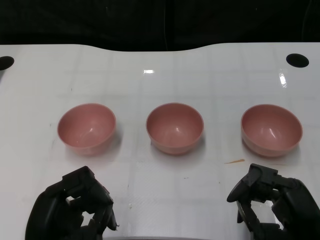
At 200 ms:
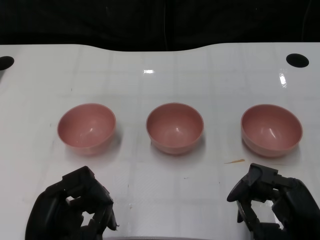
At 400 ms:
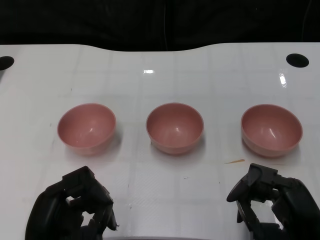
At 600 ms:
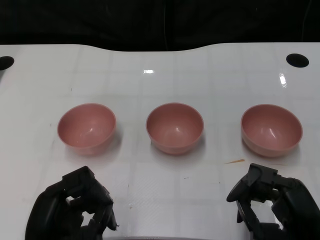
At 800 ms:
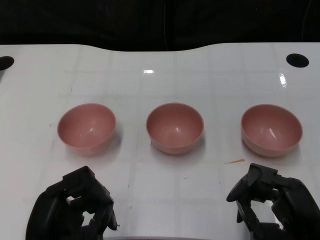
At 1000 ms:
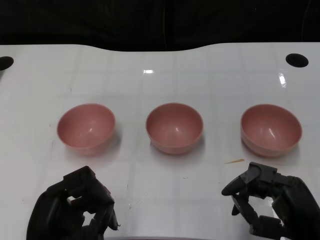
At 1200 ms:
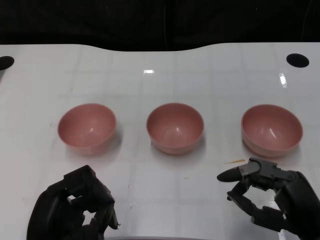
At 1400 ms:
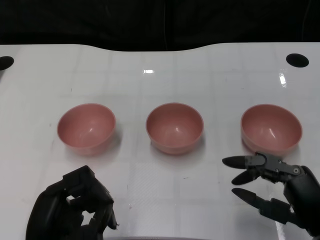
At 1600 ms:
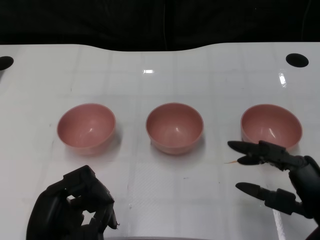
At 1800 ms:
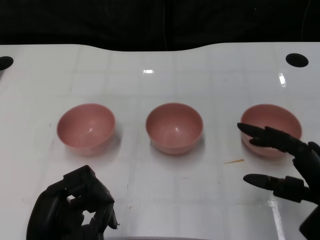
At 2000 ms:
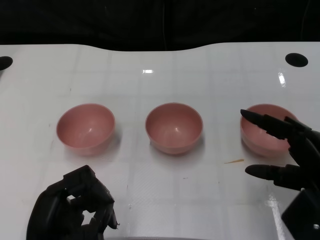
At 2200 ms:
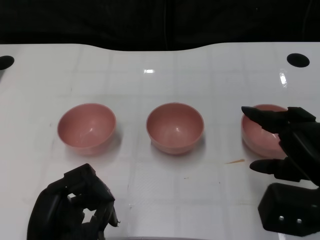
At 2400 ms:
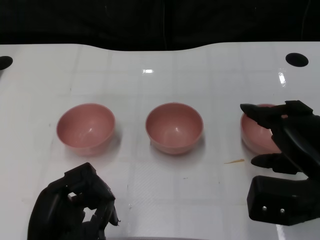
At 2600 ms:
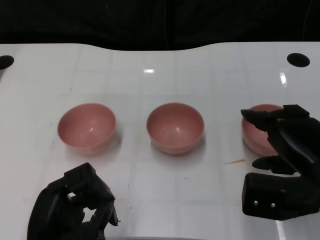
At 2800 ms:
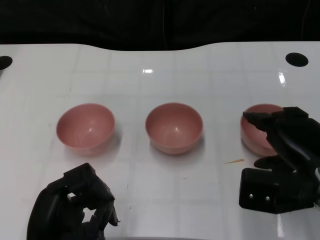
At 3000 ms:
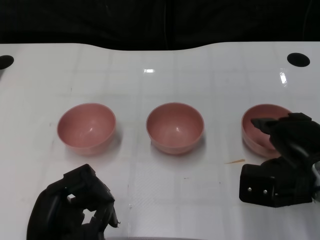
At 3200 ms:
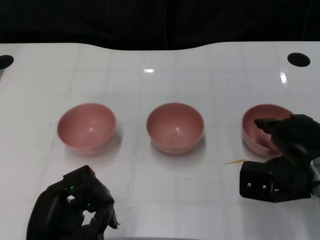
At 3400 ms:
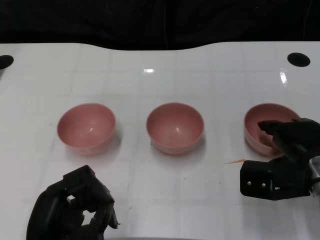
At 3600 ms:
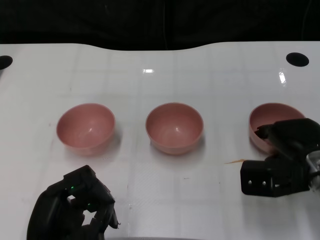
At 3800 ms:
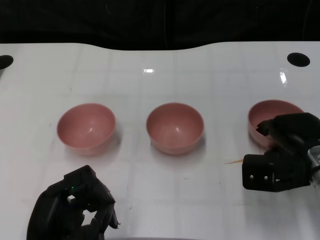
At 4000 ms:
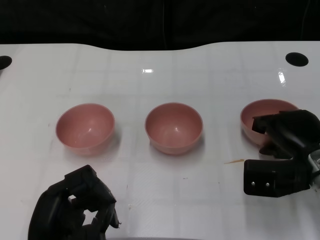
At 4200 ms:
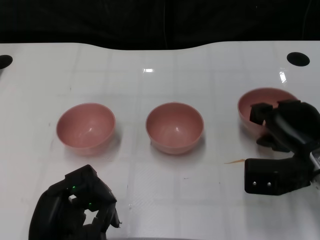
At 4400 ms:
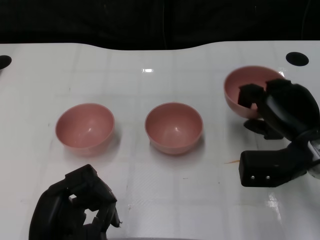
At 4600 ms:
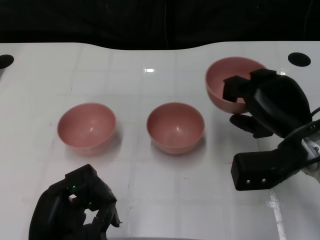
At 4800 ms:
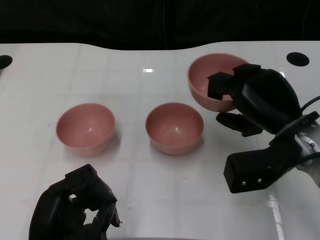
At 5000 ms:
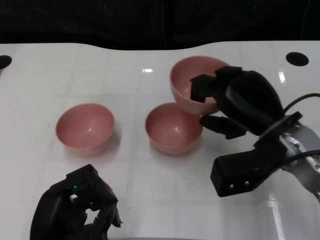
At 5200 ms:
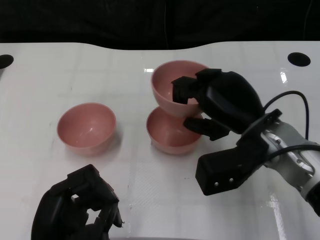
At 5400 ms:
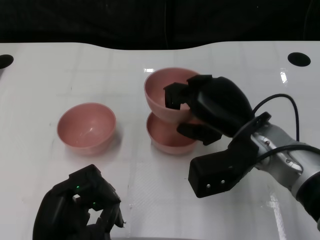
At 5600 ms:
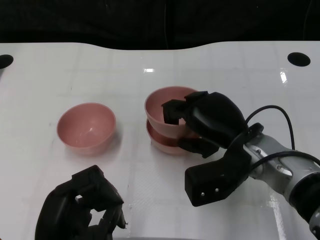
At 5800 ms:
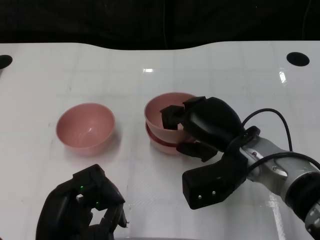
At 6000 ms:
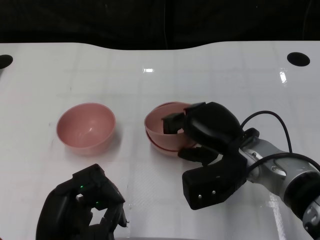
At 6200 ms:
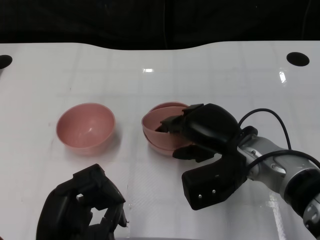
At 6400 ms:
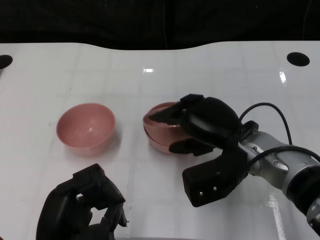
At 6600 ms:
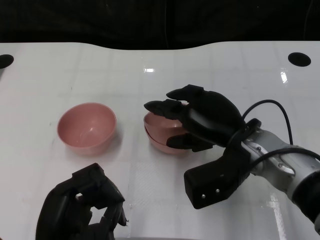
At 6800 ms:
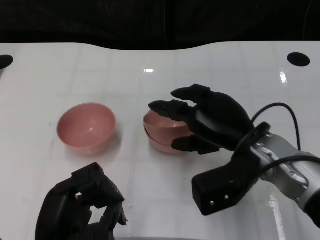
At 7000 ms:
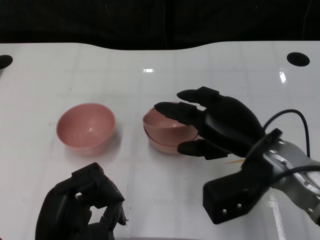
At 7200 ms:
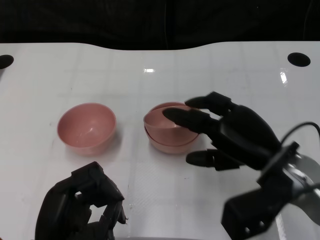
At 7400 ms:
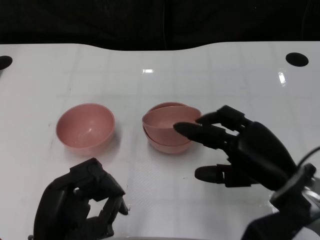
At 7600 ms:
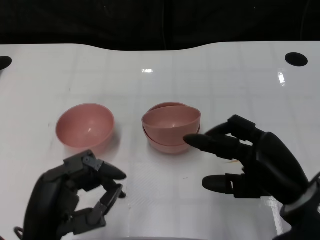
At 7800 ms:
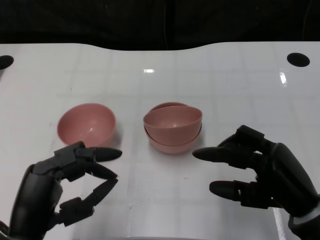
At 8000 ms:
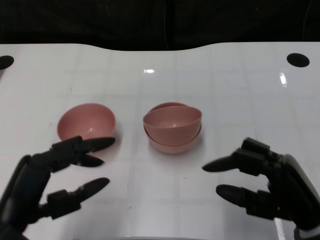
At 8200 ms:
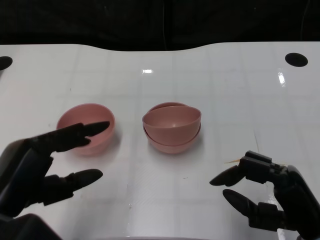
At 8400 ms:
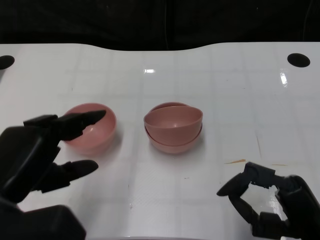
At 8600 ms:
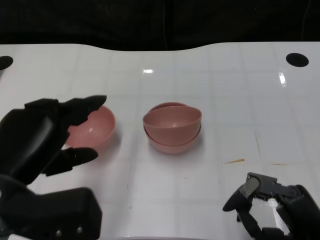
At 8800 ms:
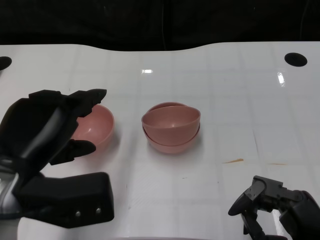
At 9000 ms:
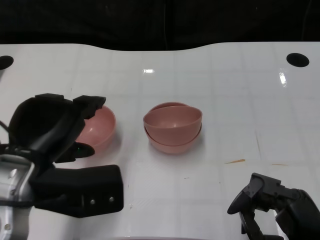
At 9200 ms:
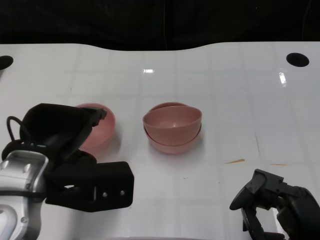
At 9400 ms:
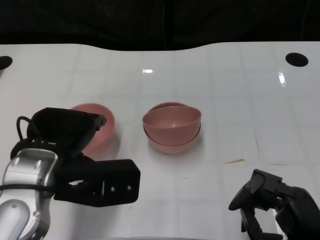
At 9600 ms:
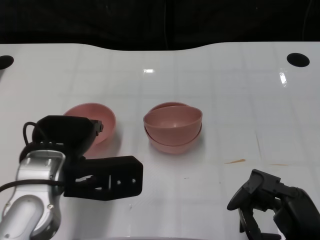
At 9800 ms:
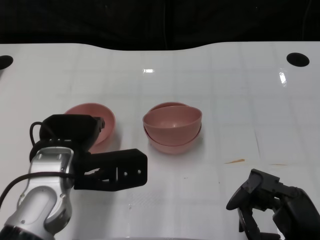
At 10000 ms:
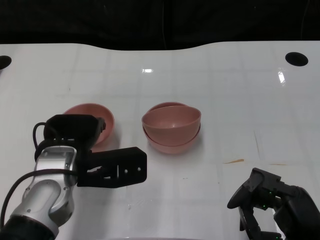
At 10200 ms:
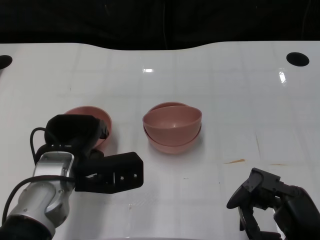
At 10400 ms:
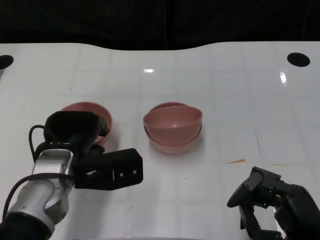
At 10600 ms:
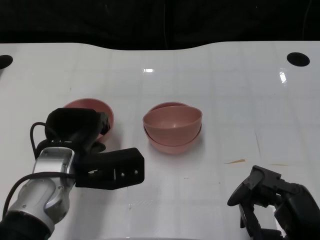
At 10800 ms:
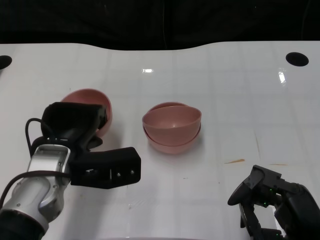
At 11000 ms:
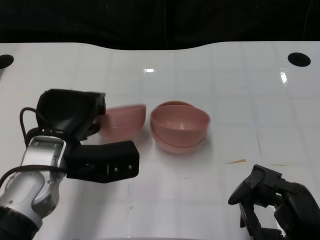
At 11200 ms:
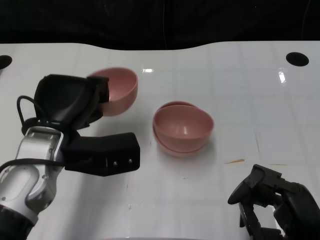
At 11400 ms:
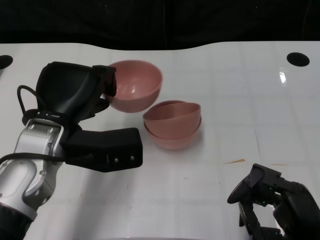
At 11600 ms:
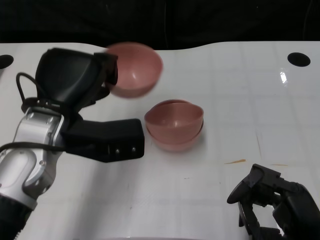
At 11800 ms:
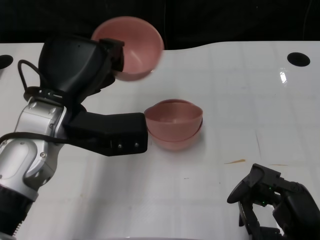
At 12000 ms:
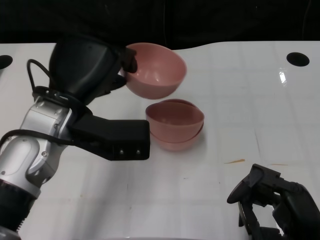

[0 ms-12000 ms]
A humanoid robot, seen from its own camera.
Task of the whole recording: Pick up the bowl on one side of the table and place it on top of the middle bowl, then pick up the bowl on the other side of the table and place it on top of the middle bowls.
Step, 1000 ms to 3800 ms: Grasp the bowl on the right with the right gripper.
Step, 4000 ms to 7200 ms: Place the bowl on the right onto the bowl in the middle with right gripper.
Step, 7400 ms to 11000 ms: Grasp the bowl on the left with the left gripper.
1600 ms to 3000 ms: The right hand is displaced forward by some 10 cm.
4400 ms to 6000 ms: The right hand heads to the left, covering approximately 10 cm.
6000 ms to 7600 ms: The right hand moves to the right and backward, some 10 cm.
7600 ms to 9000 ms: The right hand moves backward, roughly 10 cm. Meanwhile the left hand is displaced upward and forward by roughly 10 cm.
9000 ms to 10400 ms: The left hand goes some 10 cm downward and forward.
10400 ms to 12000 ms: The left hand heads upward, covering some 10 cm.

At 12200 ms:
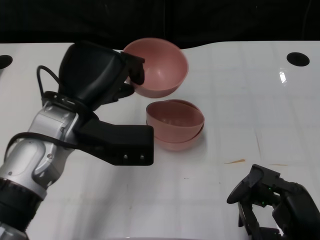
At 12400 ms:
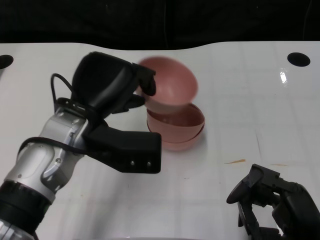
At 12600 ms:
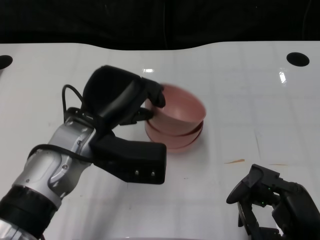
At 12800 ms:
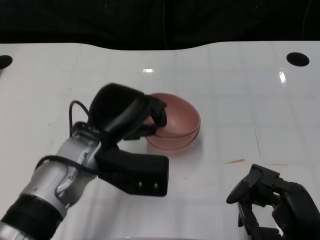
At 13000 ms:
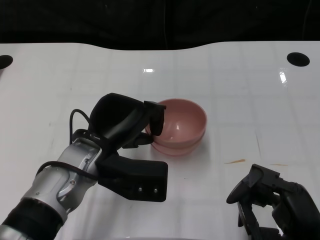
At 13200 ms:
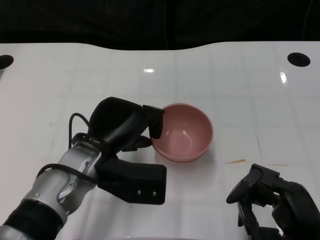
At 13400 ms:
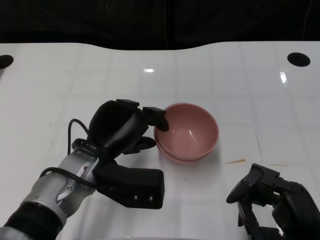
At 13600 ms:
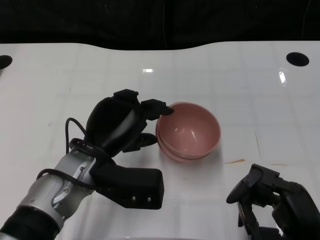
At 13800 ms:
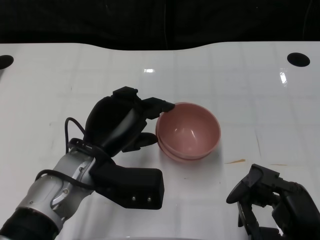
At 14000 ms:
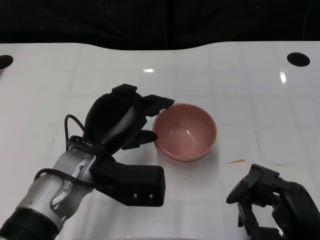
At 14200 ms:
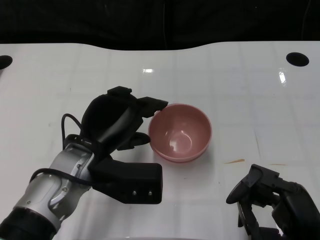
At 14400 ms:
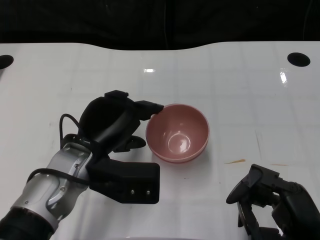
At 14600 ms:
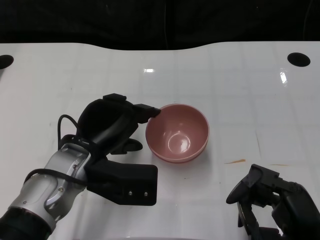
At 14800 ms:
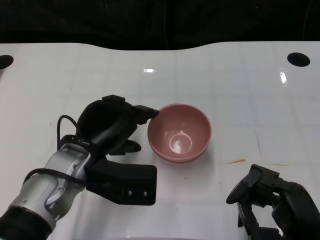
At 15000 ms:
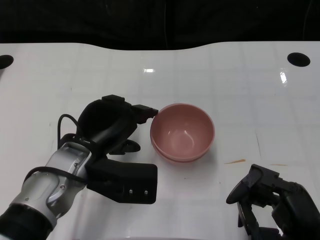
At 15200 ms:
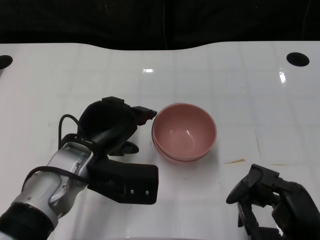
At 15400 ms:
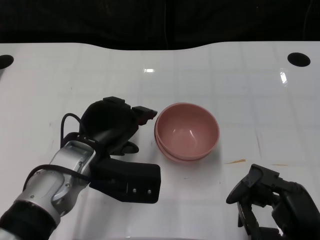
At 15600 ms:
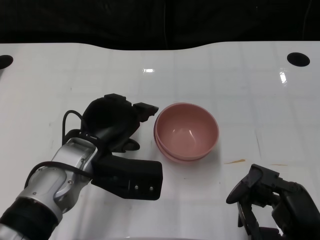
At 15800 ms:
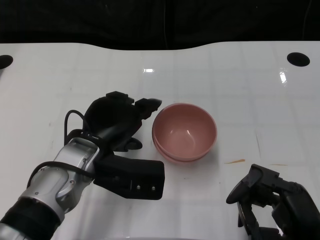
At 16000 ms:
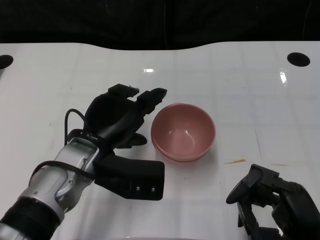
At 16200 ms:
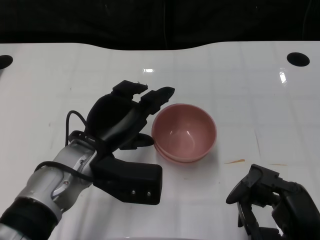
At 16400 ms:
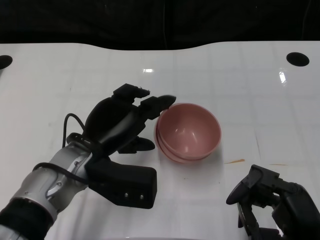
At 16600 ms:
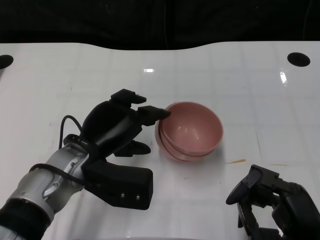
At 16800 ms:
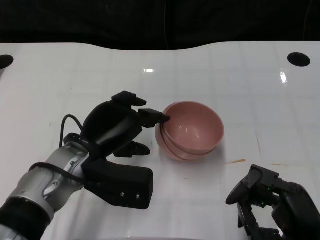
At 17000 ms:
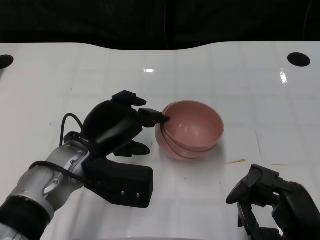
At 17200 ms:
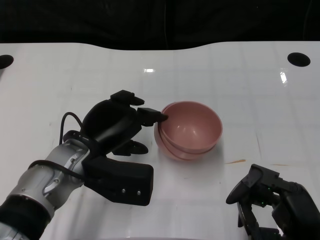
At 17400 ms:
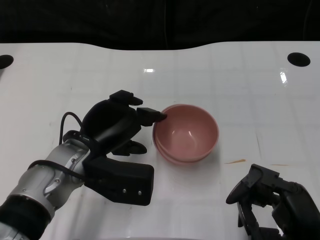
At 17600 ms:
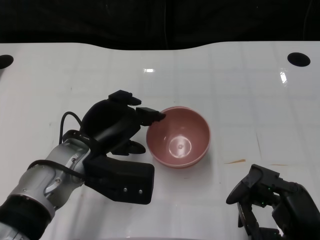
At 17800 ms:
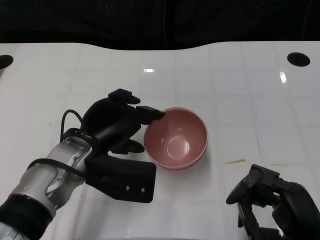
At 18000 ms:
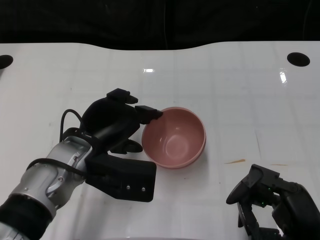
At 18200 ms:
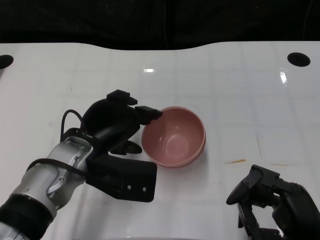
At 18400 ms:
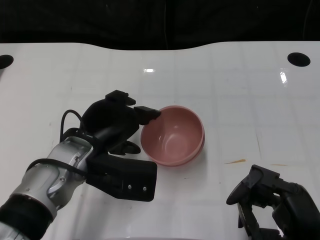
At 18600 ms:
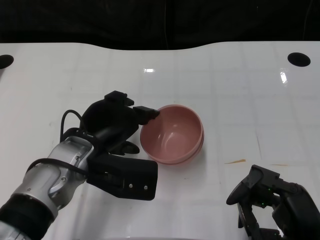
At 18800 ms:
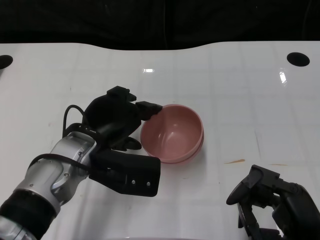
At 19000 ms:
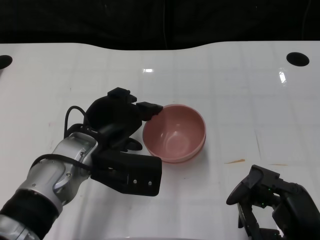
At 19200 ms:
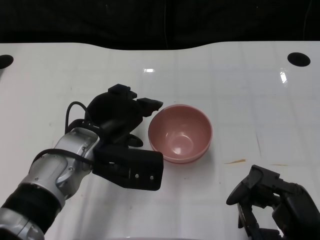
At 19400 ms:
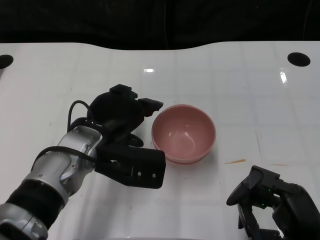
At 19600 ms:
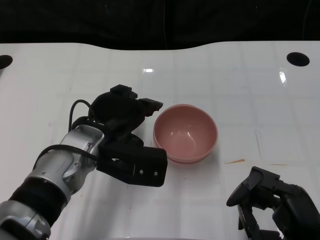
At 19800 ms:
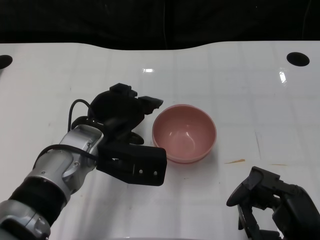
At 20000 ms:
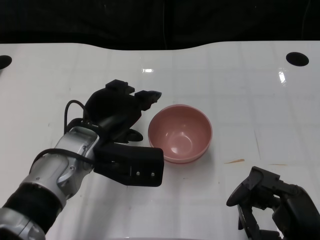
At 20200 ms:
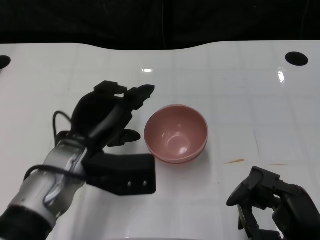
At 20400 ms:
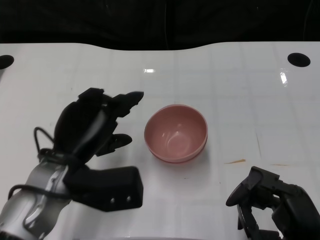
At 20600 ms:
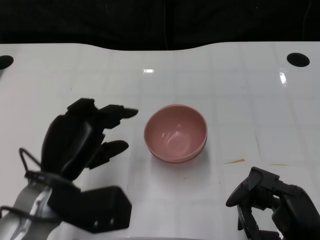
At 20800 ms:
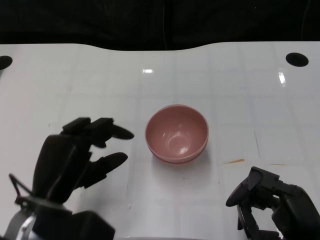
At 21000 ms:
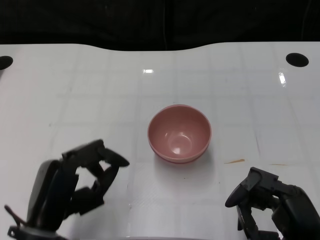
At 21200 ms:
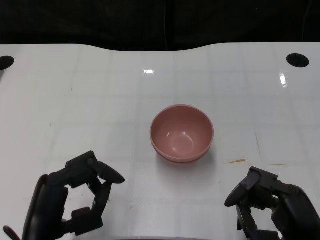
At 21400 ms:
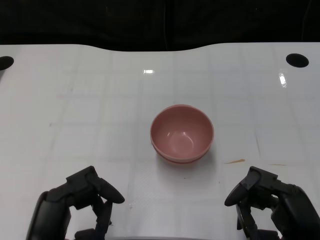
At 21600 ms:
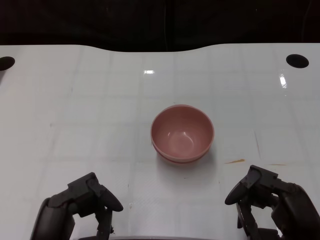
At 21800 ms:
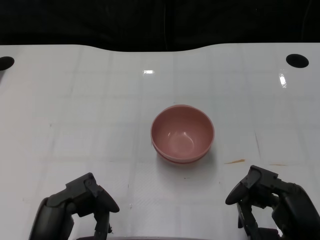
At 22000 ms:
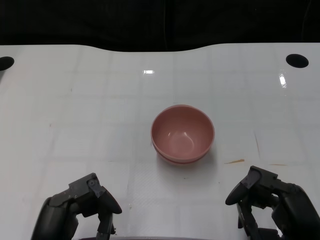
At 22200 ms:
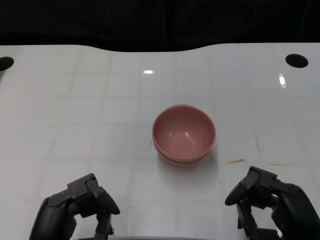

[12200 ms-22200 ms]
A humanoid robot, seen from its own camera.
Task of the whole recording: Pick up the bowl on one side of the table and place it on top of the middle bowl, then pick up the bowl on the other side of the table and place it on top of the middle bowls.
Step, 12200 ms to 14600 ms: Place the bowl on the left onto the bowl in the middle with left gripper.
12200 ms to 13600 ms: The left hand travels downward by roughly 5 cm.
13600 ms to 18000 ms: There are only small adjustments of the hands.
18000 ms to 19400 ms: The hands stay close to where they were, moving slightly.
19400 ms to 20800 ms: The left hand shifts about 10 cm backward and to the left.
20800 ms to 22200 ms: The left hand heads backward, covering about 10 cm.
